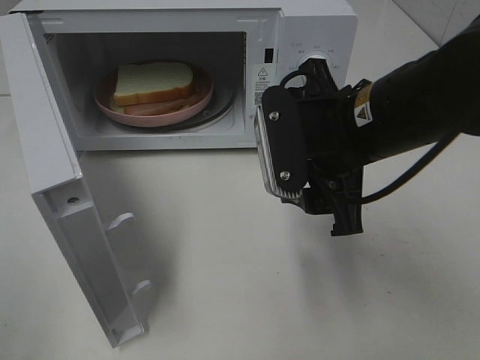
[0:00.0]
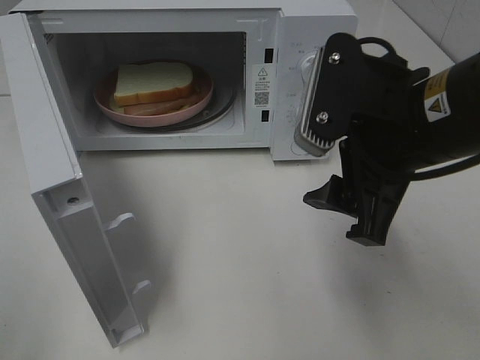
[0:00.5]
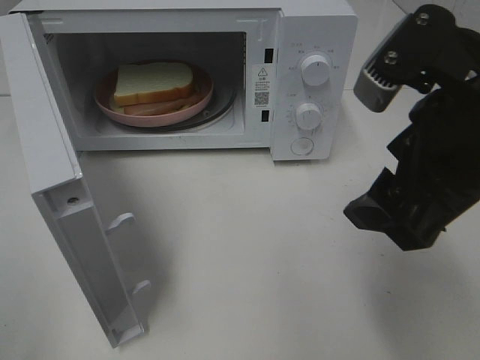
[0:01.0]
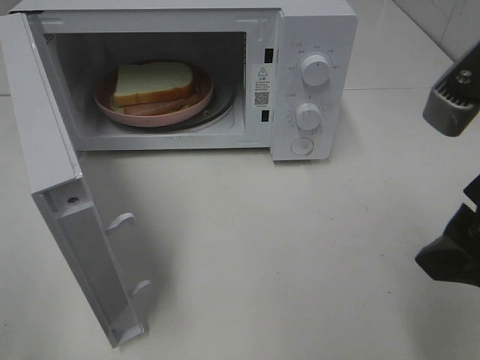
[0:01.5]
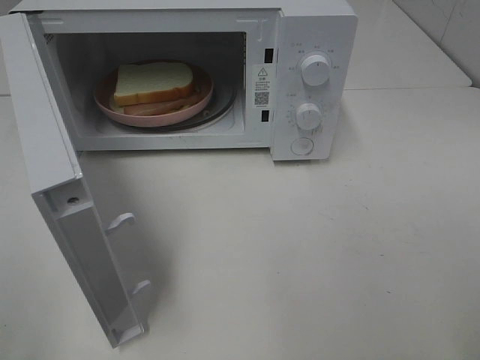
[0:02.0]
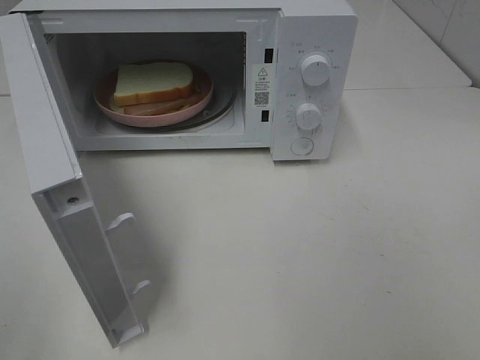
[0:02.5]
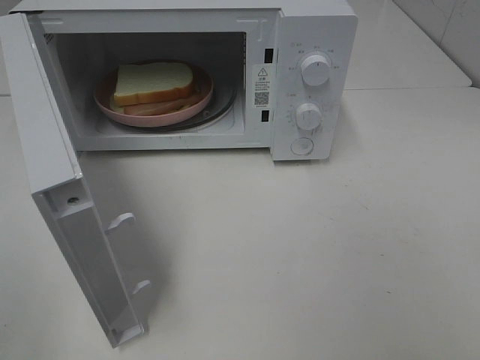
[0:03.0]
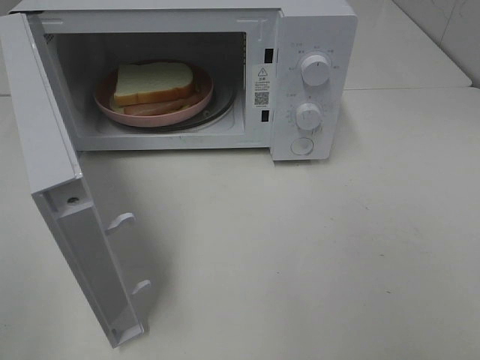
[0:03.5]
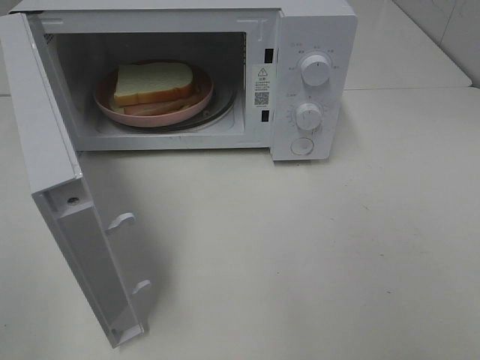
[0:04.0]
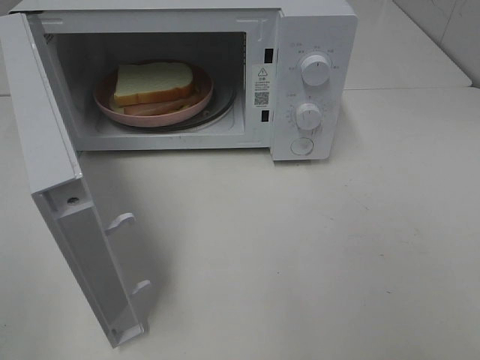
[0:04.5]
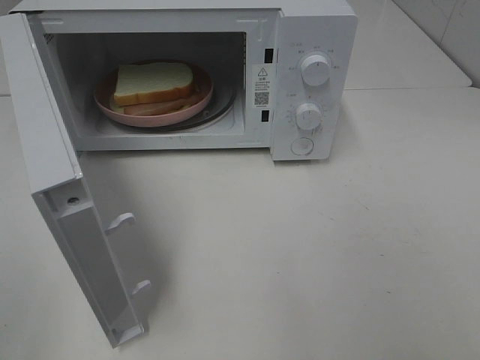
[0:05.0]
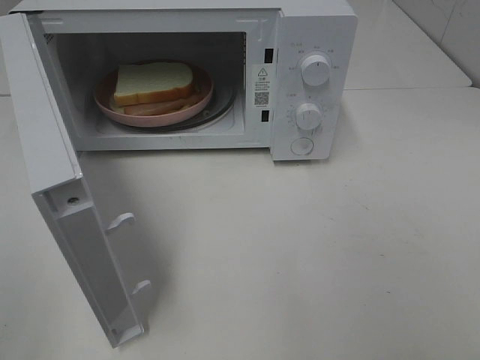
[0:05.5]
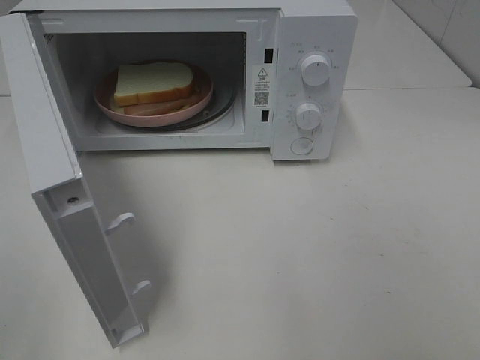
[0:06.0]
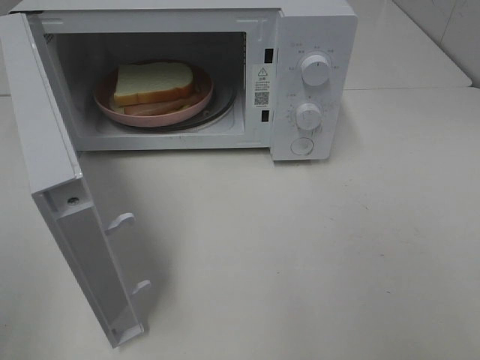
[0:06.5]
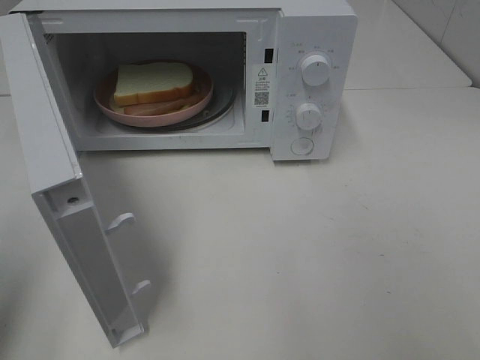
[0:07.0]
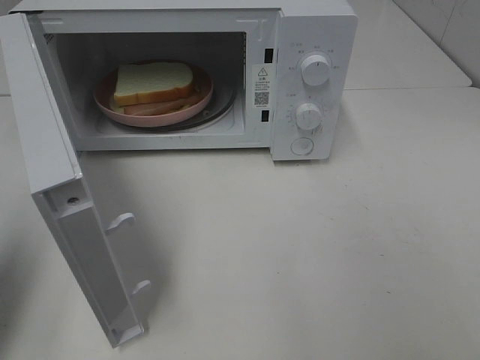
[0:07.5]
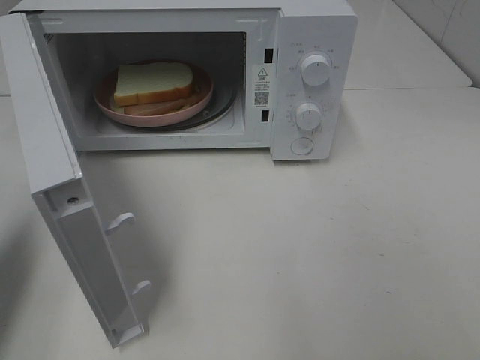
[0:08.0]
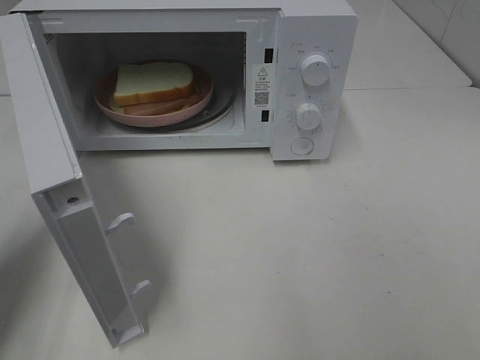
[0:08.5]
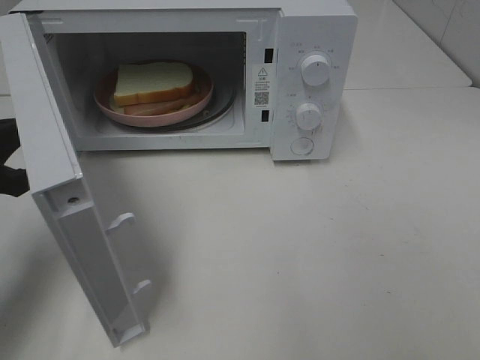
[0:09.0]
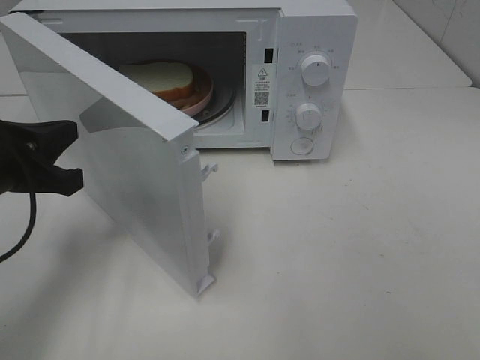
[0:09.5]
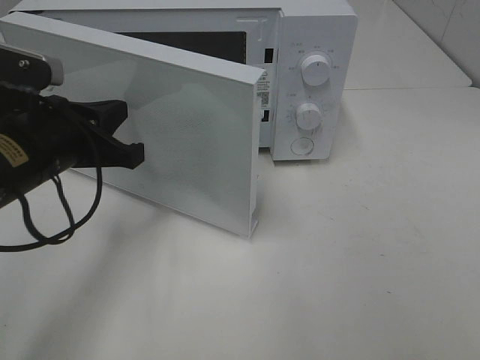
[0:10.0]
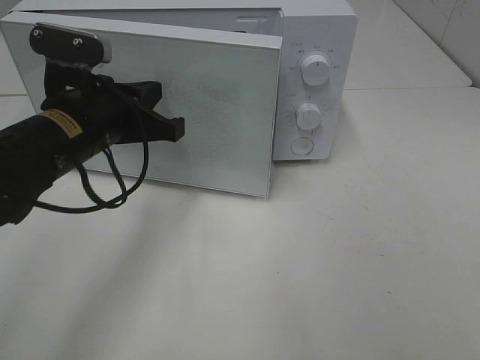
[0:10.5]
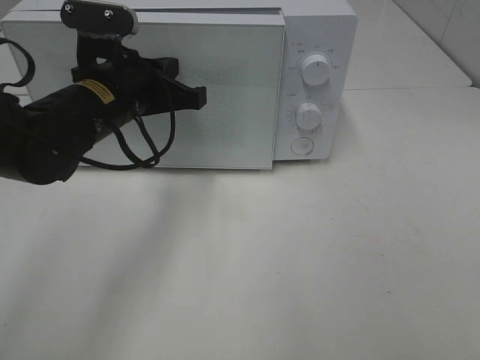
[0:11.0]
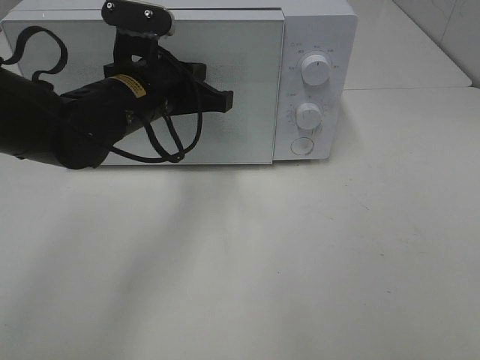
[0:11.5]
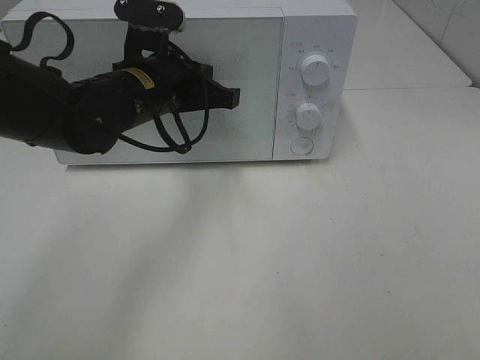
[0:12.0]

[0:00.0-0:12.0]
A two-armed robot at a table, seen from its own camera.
Task of the whole recording: Heat Sandwich.
0:00.0 to 0:02.0: The right gripper heads backward, to the right and upward, covering roughly 20 cm.
0:04.0 to 0:06.0: The two grippers keep their place.
0:06.0 to 0:08.0: The left gripper goes some 20 cm forward, and closes up.
0:08.0 to 0:10.0: The left gripper heads to the right, forward and downward, covering approximately 15 cm.
0:10.0 to 0:12.0: The left gripper travels to the right and forward by roughly 15 cm.

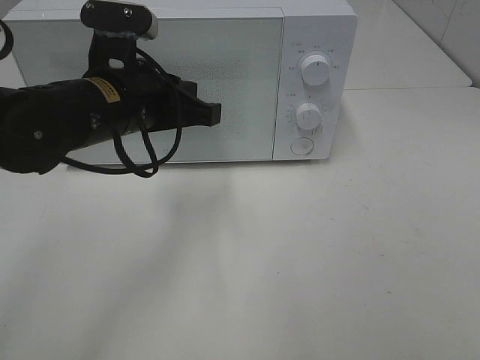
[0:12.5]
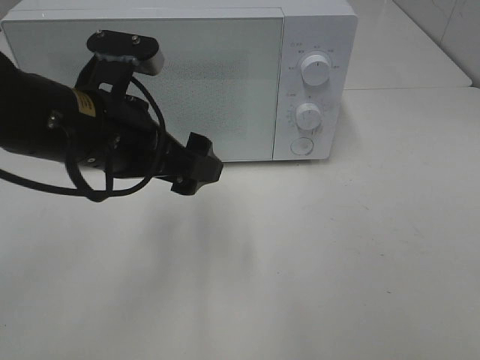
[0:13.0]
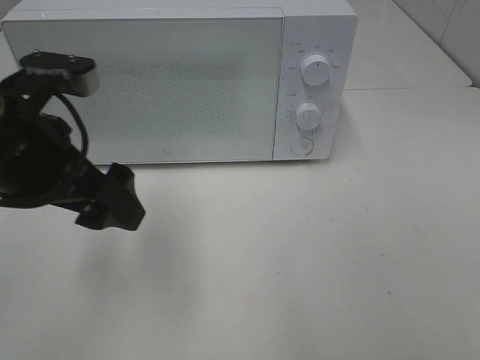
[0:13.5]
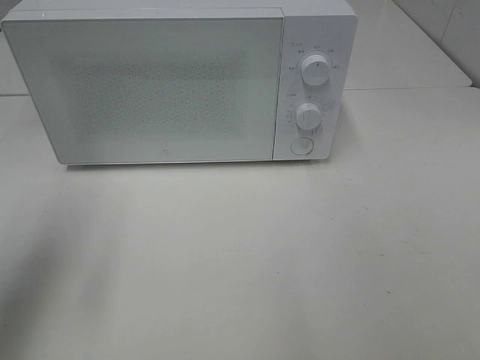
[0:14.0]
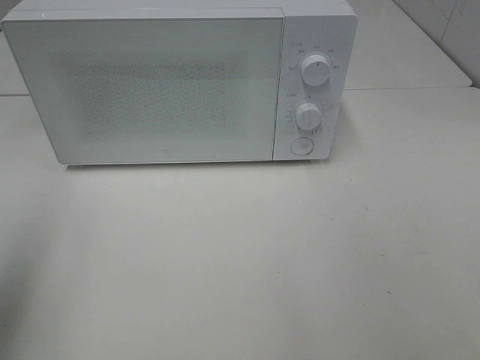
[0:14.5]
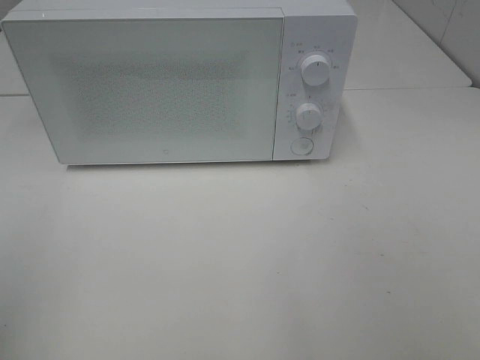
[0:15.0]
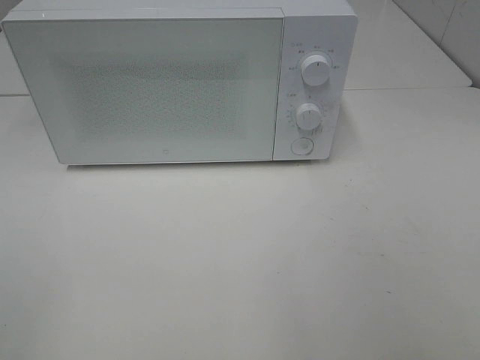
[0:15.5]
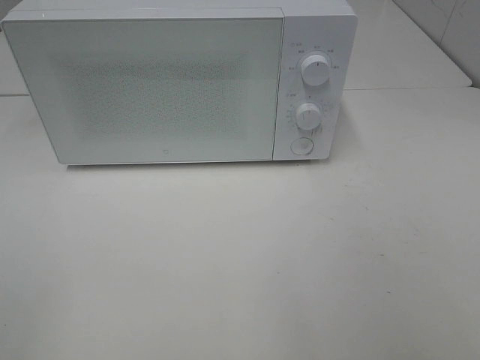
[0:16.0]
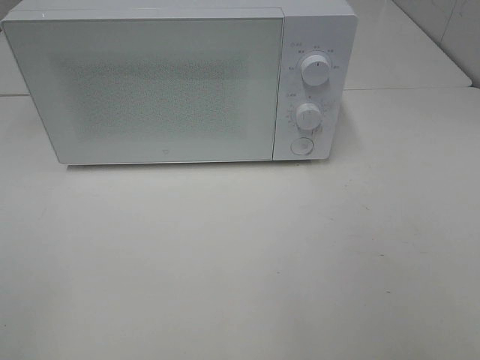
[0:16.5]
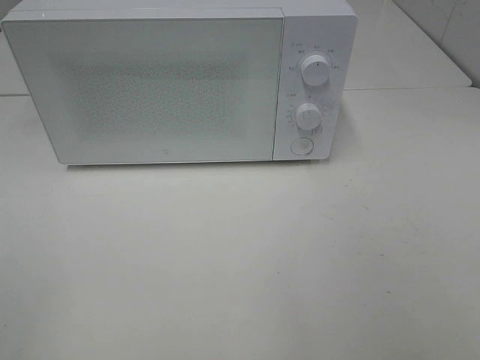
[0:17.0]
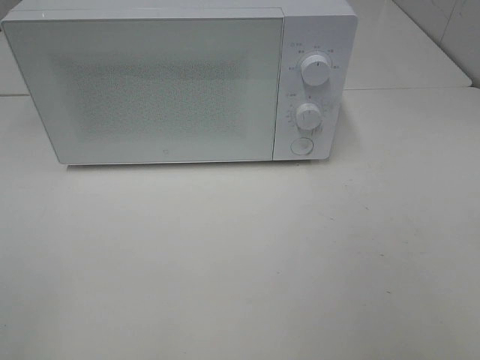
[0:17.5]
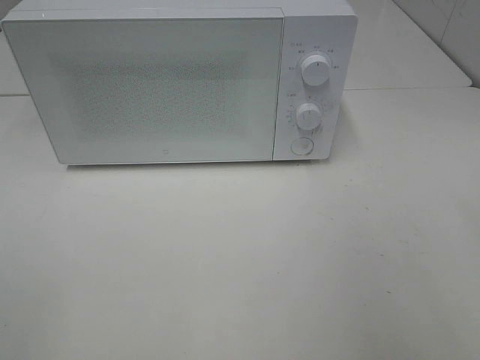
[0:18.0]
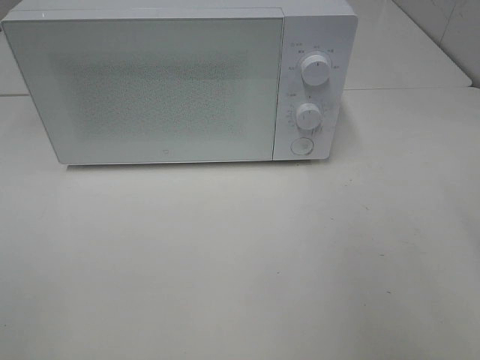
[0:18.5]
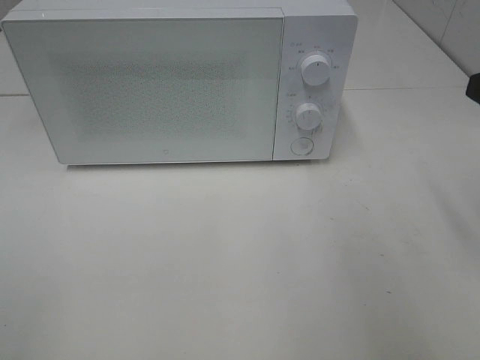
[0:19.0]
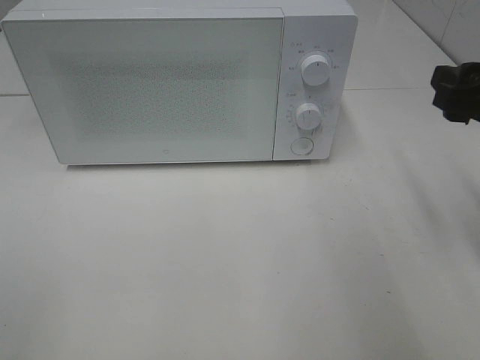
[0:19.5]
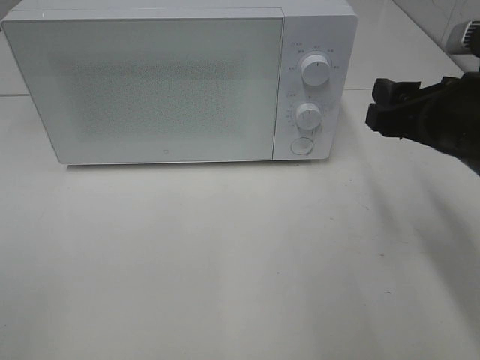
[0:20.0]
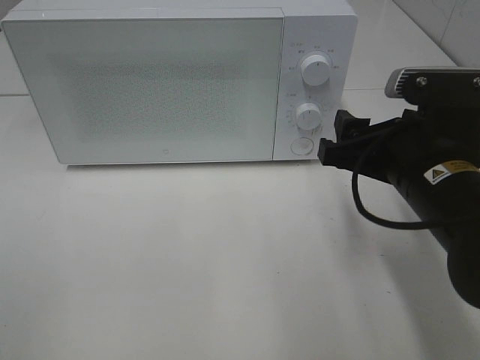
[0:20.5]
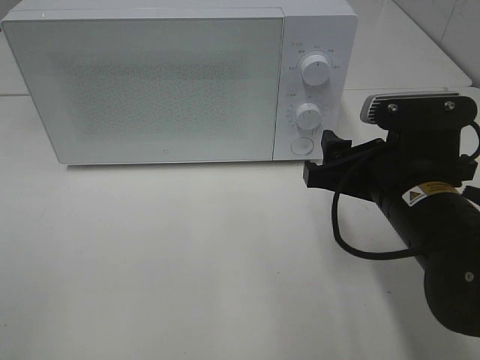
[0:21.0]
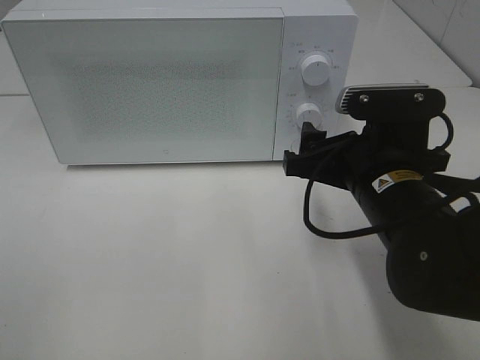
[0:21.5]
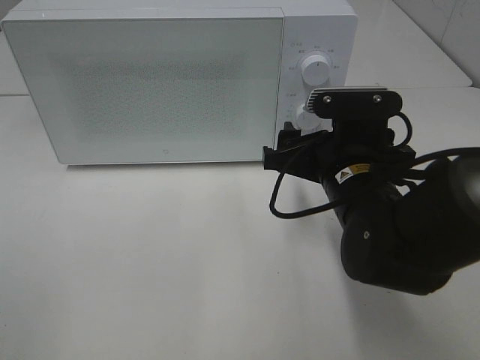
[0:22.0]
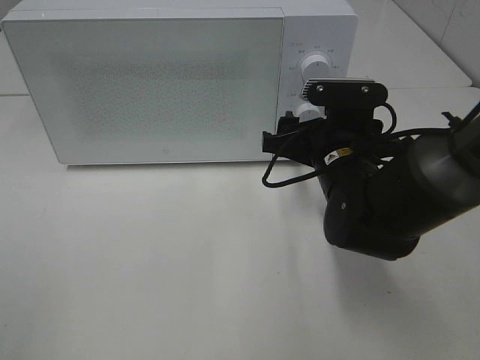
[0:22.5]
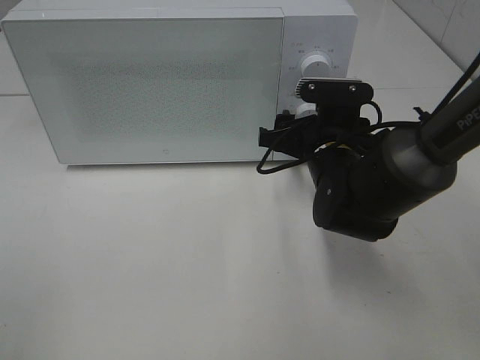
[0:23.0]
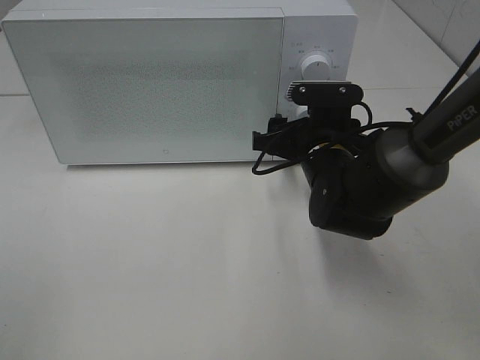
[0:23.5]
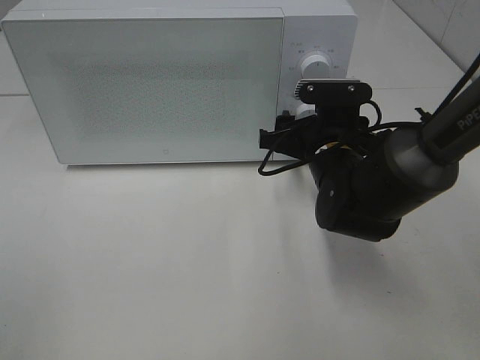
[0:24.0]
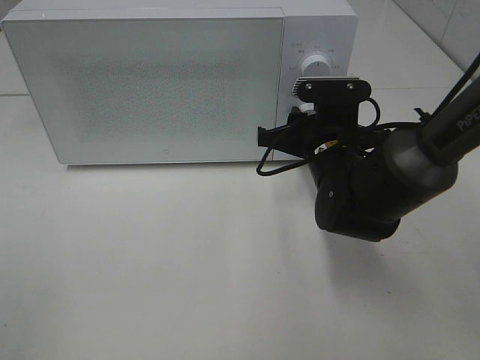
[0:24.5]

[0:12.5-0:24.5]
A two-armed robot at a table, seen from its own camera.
Task of the whole recording: Heat Sandwich.
0:12.5 to 0:14.5: The left gripper is displaced to the left, backward and upward by roughly 30 cm, and opens its fingers.
0:14.5 to 0:16.5: The left gripper moves backward, about 15 cm.
0:18.5 to 0:20.5: The right gripper moves to the left, downward and forward, approximately 20 cm.
0:20.5 to 0:22.5: The right gripper travels forward, downward and to the left by some 10 cm.
0:22.5 to 0:24.5: The right gripper closes its fingers.

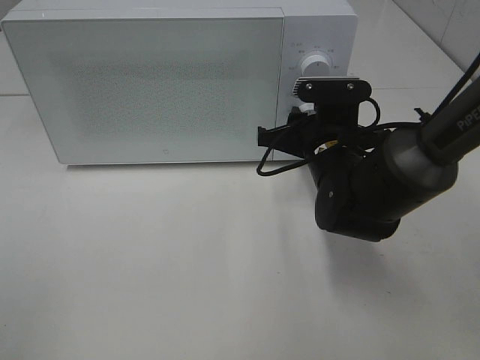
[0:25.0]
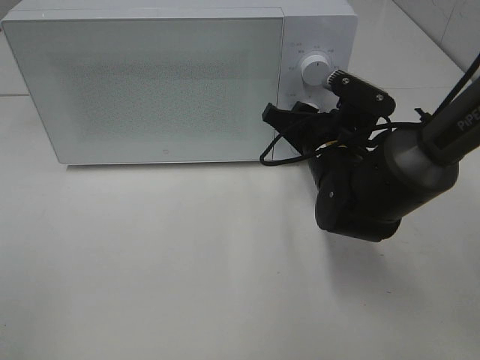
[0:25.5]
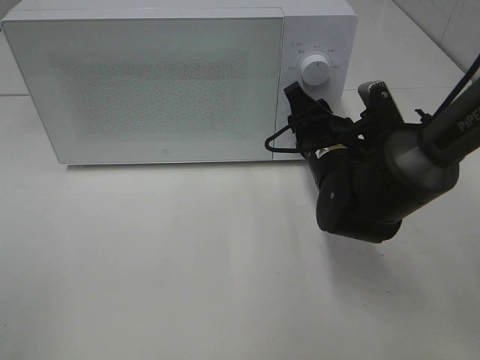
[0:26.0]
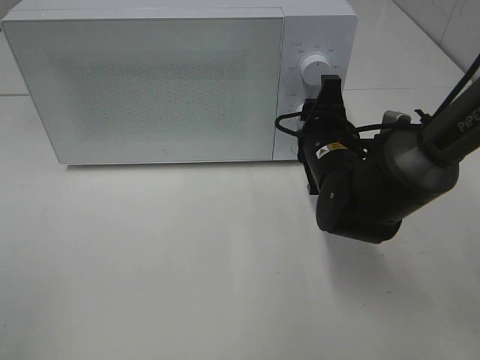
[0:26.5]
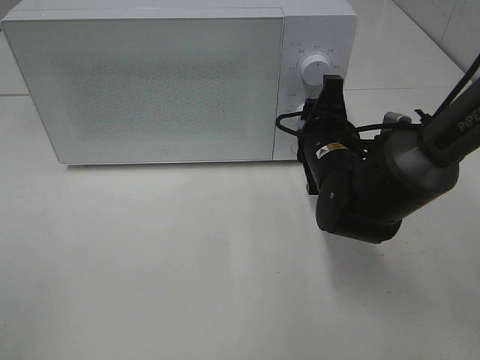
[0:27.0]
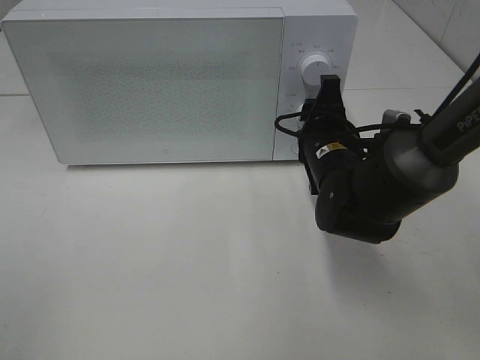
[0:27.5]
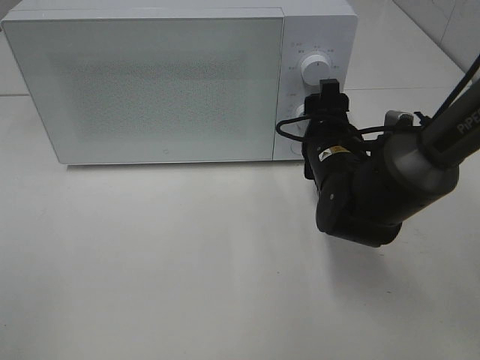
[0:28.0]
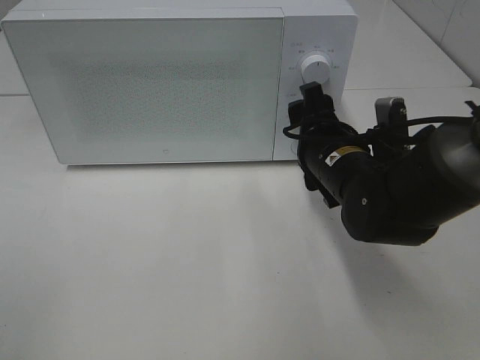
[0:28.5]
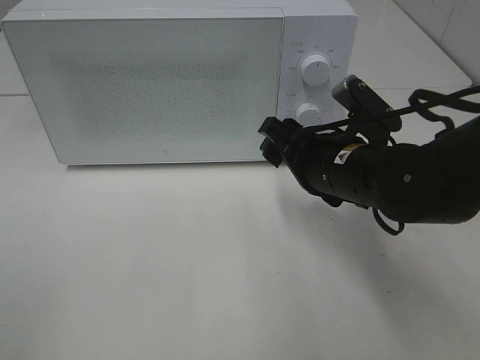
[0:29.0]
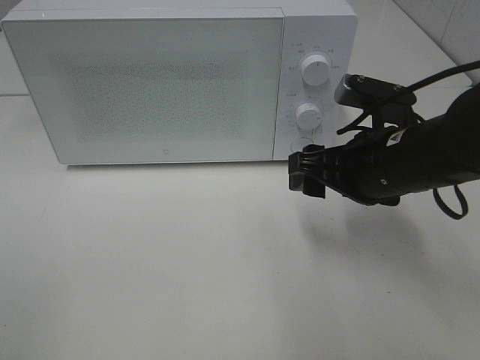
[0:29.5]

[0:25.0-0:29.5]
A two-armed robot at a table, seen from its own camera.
Task of the whole recording: Heat Sandwich.
Step, 0:25.0 to 0:28.5: Right hand: twist timer button.
0:27.0 to 0:29.5: The right gripper travels backward and upward by some 10 cm, and opens up.
